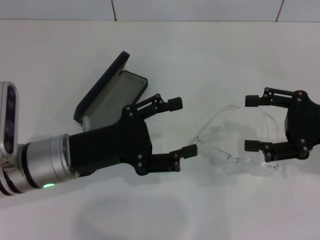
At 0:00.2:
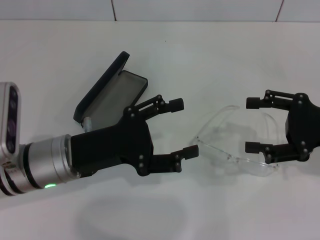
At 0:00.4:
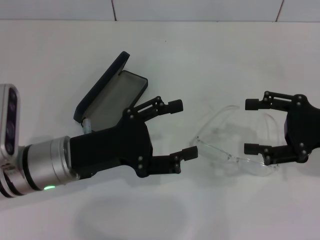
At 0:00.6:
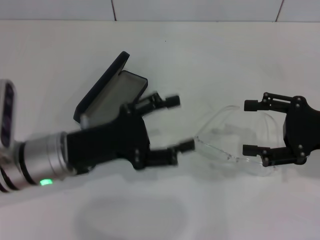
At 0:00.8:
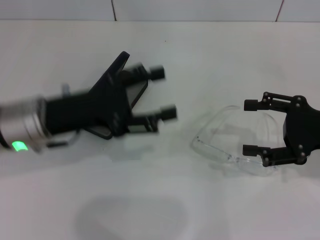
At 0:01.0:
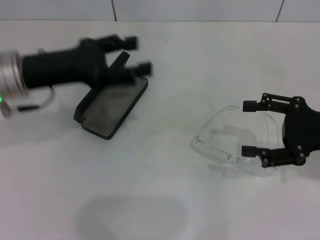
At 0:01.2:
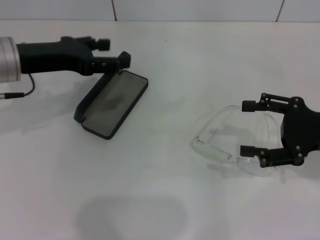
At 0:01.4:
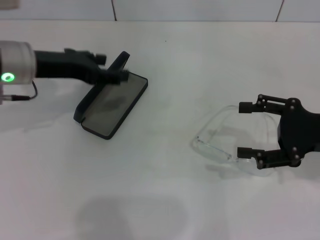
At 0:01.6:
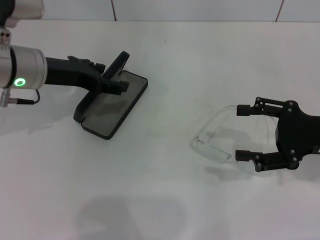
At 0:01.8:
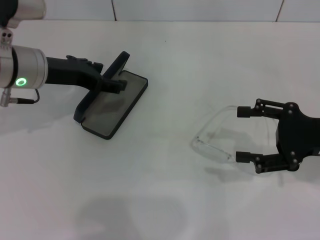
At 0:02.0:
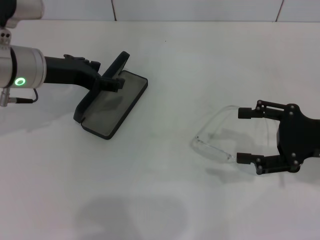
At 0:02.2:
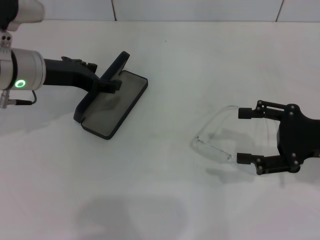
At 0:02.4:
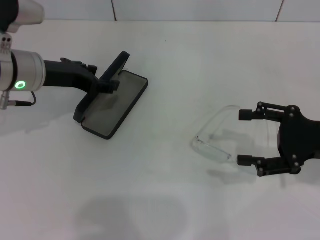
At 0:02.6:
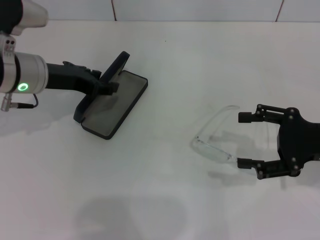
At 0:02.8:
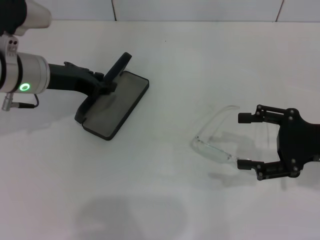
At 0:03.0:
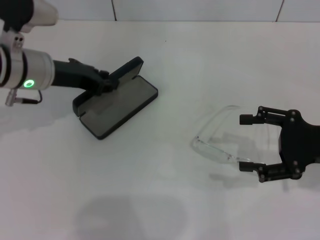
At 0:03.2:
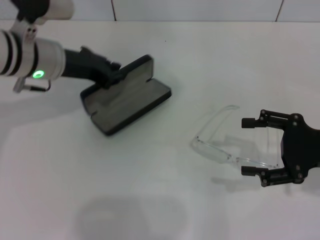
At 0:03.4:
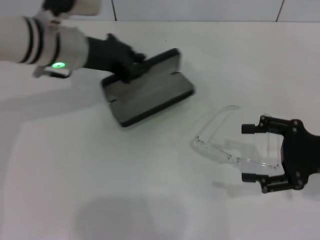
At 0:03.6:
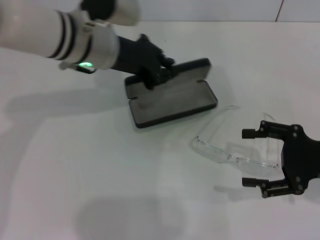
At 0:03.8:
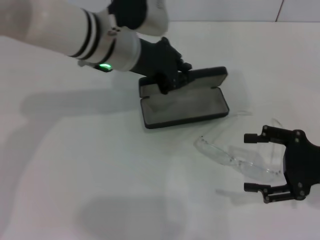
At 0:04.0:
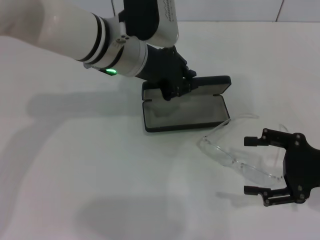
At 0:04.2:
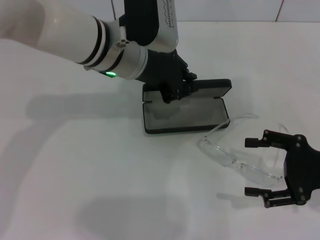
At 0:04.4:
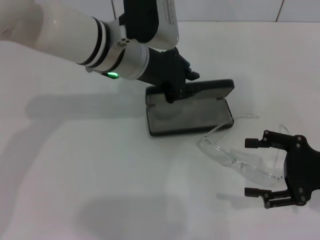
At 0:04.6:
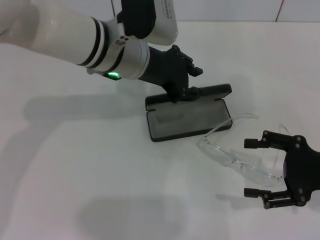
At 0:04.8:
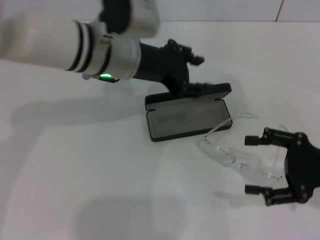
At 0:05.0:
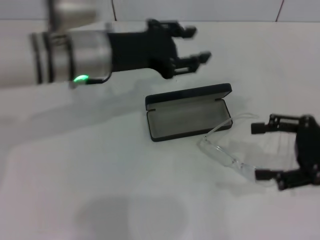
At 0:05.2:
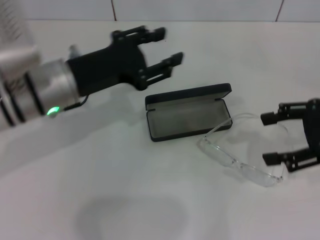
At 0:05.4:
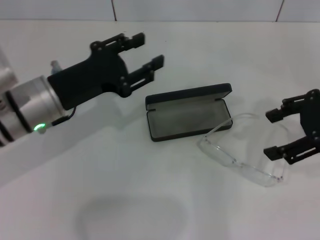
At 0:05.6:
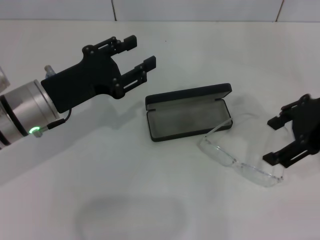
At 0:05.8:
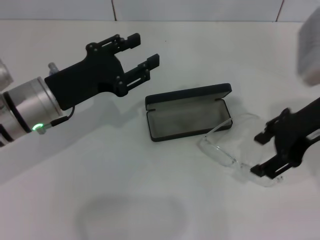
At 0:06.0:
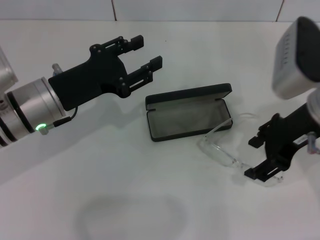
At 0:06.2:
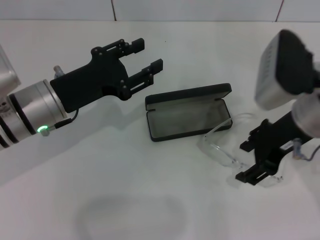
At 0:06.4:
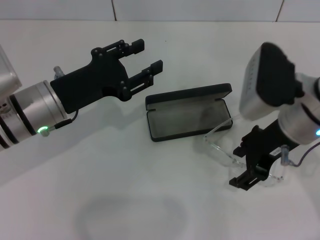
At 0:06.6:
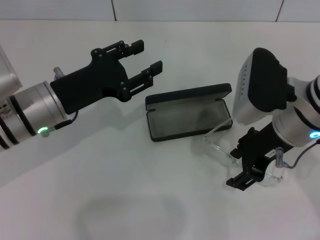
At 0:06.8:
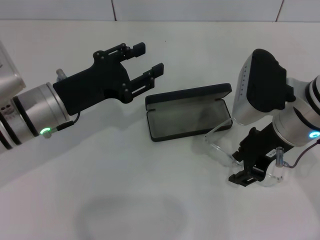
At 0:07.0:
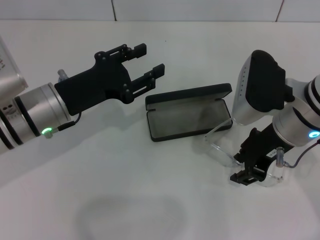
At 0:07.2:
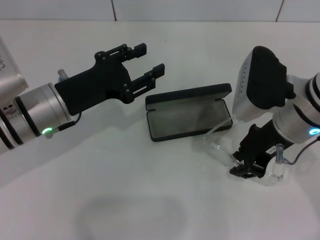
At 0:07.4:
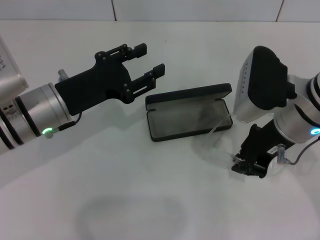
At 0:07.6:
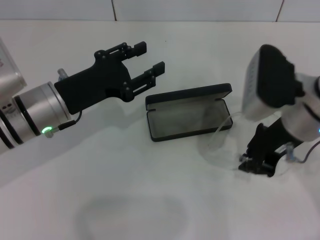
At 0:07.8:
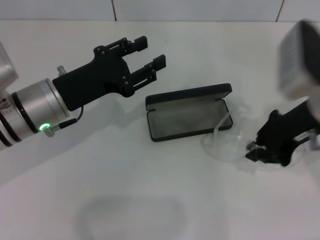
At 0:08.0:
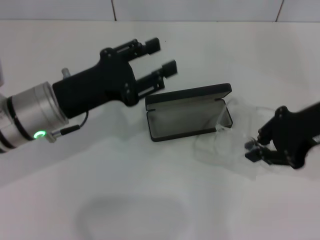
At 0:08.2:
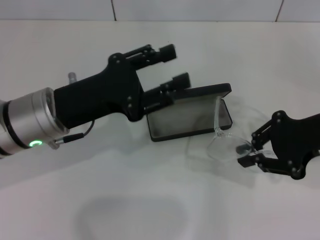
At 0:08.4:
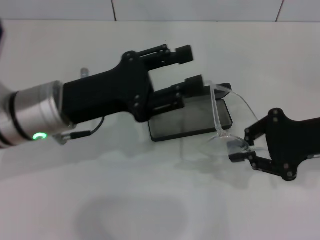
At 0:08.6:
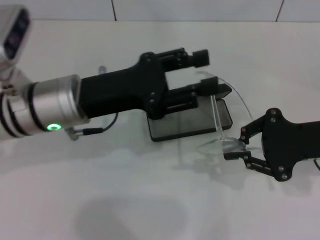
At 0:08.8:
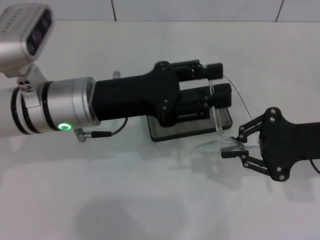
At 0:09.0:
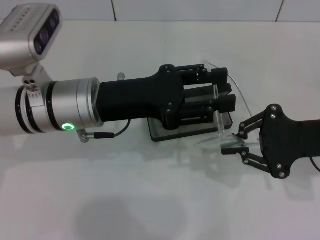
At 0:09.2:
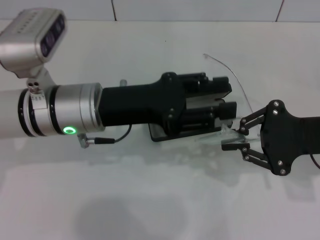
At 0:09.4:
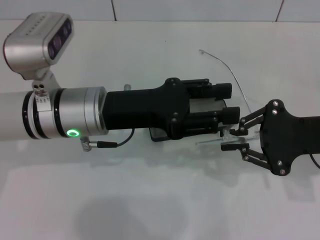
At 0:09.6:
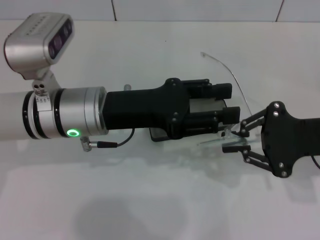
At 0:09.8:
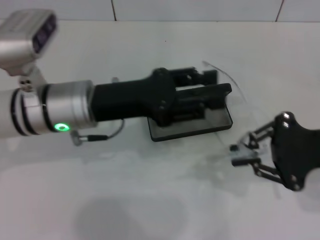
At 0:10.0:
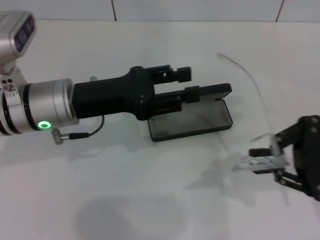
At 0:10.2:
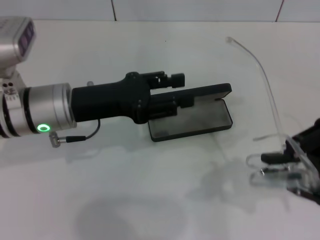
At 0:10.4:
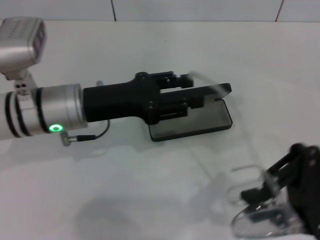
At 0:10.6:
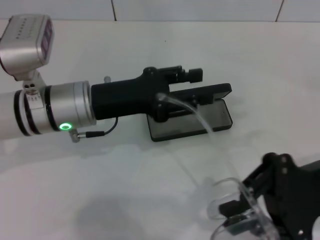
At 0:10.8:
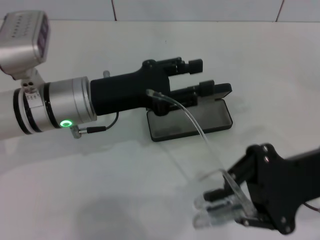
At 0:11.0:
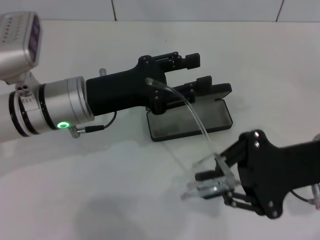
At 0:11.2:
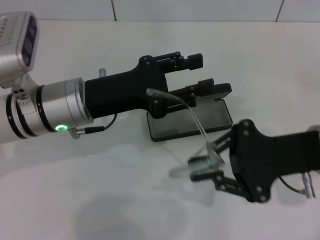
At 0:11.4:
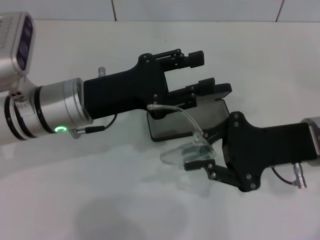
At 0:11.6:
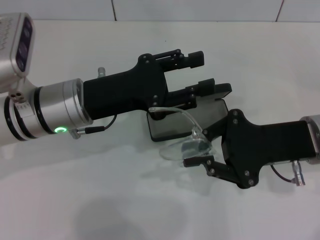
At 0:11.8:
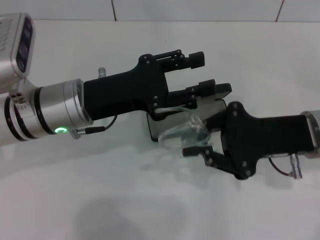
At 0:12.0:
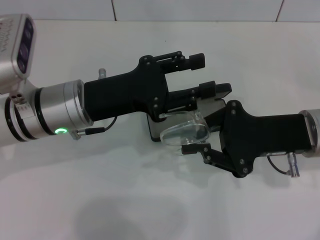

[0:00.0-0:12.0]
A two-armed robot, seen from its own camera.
Step, 0:00.0 to 0:02.8: Grab the glasses case with your left hand.
Step, 0:03.0 to 0:04.2: Place the glasses case in the center of the table with your left hand.
Step, 0:04.6 to 0:07.4: Grab the eyeglass frame with your right hand.
0:00.0 to 0:01.6: The left gripper heads forward and upward, covering some 15 cm.
0:01.6 to 0:03.0: The left gripper closes up.
0:03.0 to 0:04.4: The left gripper travels to the right by approximately 15 cm.
0:04.4 to 0:06.0: The right gripper travels upward, to the left and forward by roughly 15 cm. Meanwhile the left gripper heads to the left, backward and downward, covering approximately 15 cm, and opens up.
0:06.0 to 0:07.6: The right gripper closes its fingers.
0:07.6 to 0:09.0: The left gripper moves to the right, some 5 cm. Meanwhile the right gripper goes about 10 cm to the right.
0:10.4 to 0:12.0: The right gripper heads to the left and forward, covering about 5 cm.

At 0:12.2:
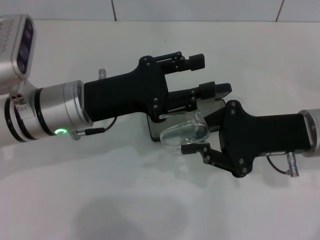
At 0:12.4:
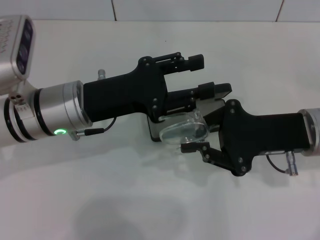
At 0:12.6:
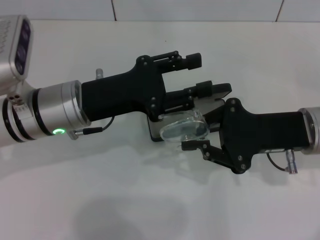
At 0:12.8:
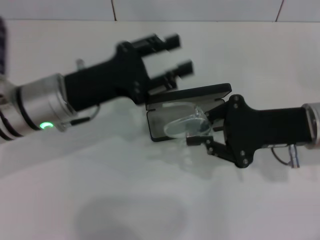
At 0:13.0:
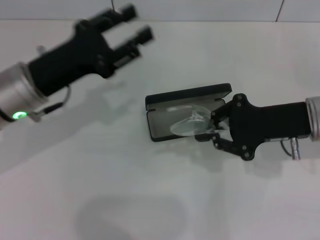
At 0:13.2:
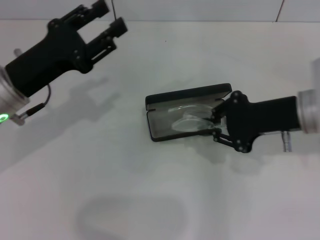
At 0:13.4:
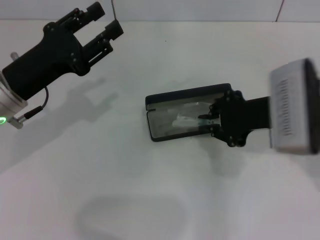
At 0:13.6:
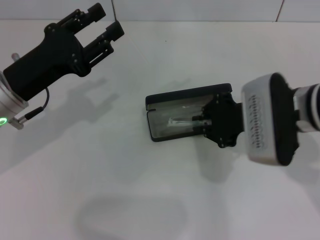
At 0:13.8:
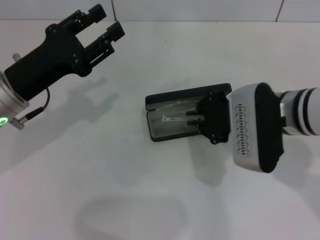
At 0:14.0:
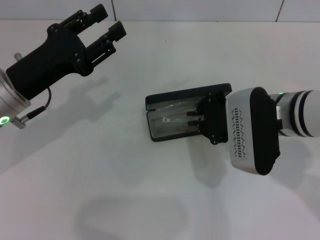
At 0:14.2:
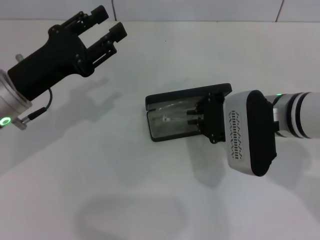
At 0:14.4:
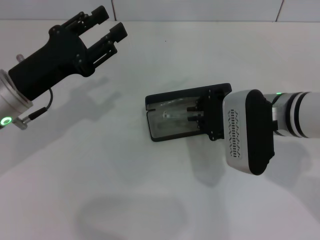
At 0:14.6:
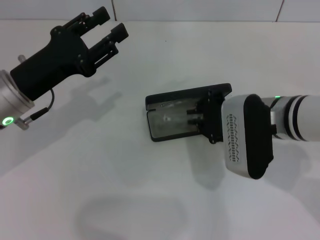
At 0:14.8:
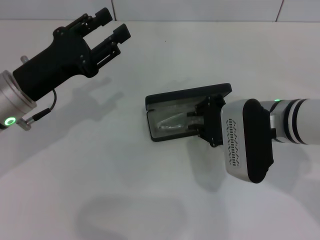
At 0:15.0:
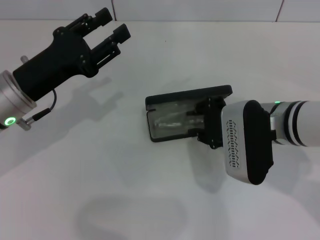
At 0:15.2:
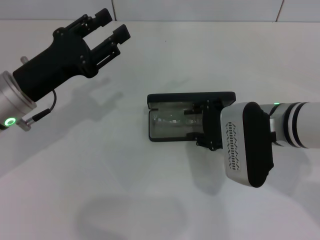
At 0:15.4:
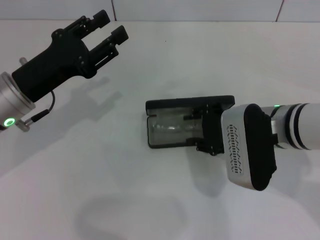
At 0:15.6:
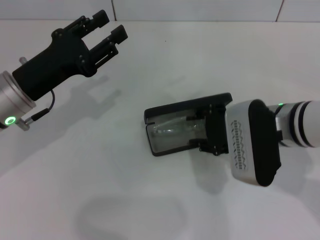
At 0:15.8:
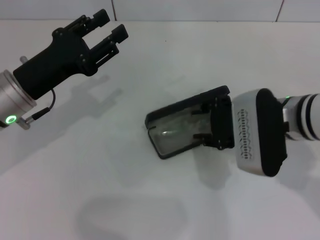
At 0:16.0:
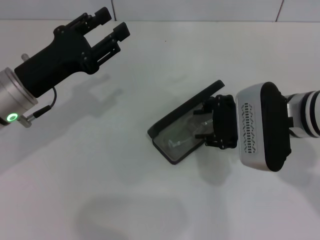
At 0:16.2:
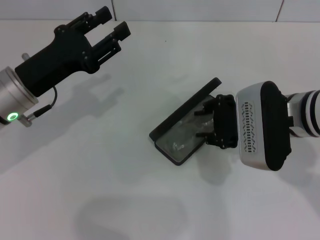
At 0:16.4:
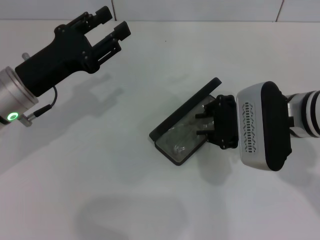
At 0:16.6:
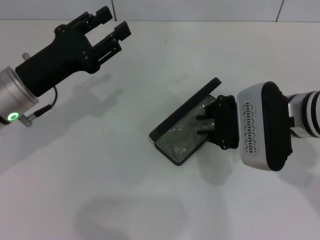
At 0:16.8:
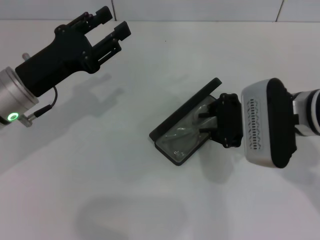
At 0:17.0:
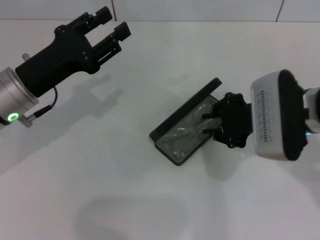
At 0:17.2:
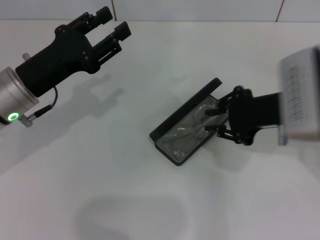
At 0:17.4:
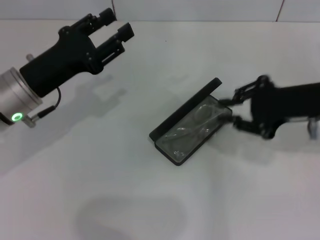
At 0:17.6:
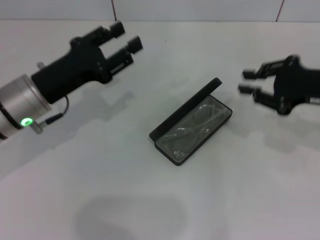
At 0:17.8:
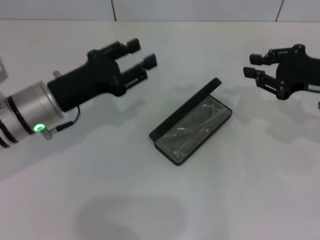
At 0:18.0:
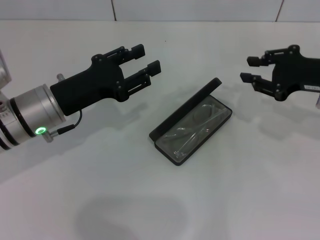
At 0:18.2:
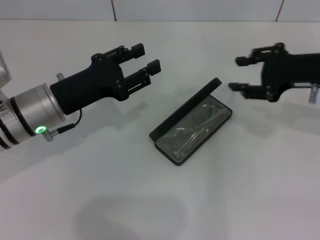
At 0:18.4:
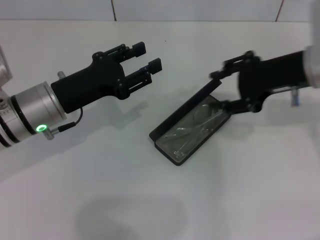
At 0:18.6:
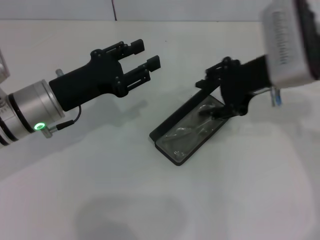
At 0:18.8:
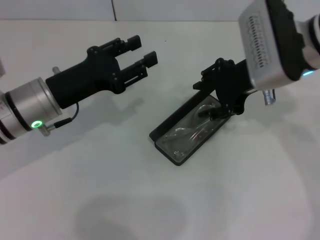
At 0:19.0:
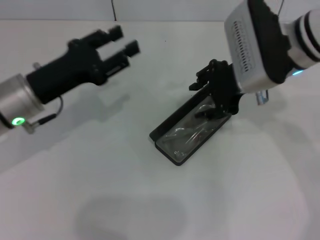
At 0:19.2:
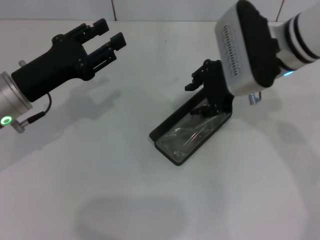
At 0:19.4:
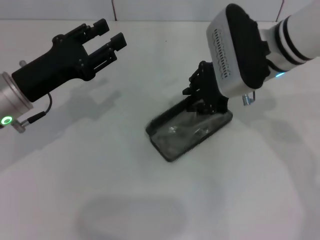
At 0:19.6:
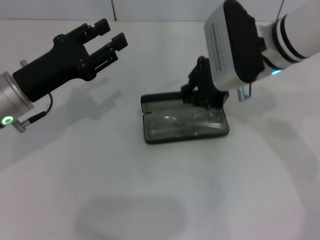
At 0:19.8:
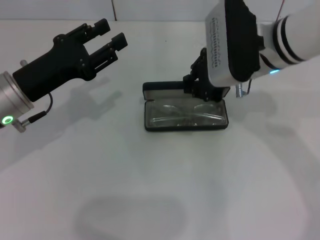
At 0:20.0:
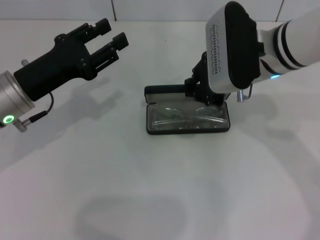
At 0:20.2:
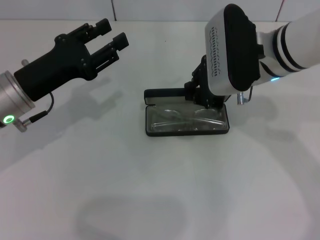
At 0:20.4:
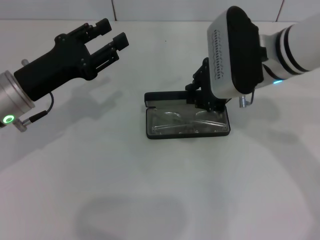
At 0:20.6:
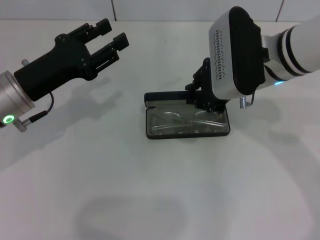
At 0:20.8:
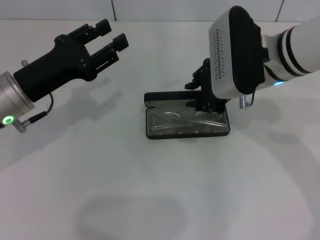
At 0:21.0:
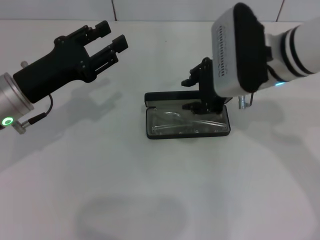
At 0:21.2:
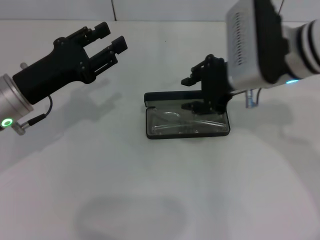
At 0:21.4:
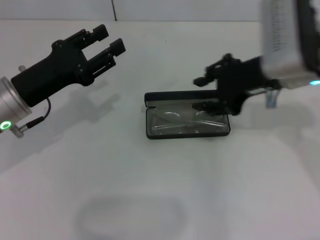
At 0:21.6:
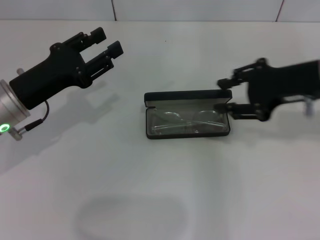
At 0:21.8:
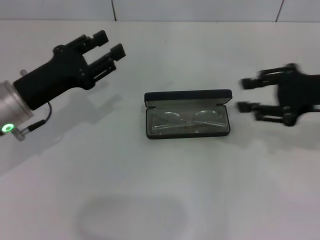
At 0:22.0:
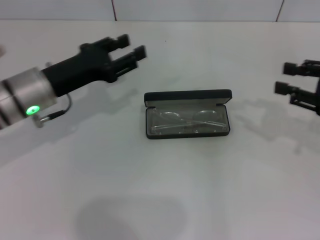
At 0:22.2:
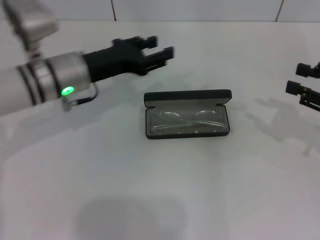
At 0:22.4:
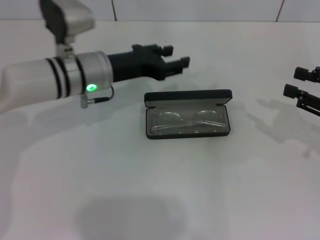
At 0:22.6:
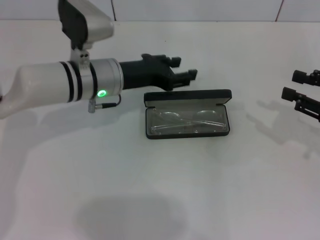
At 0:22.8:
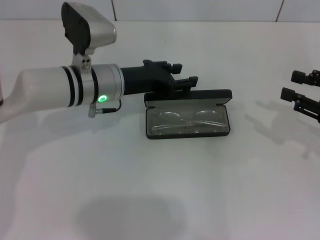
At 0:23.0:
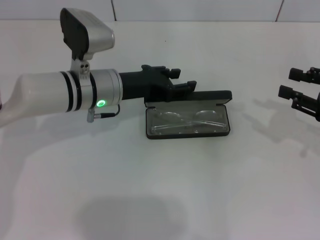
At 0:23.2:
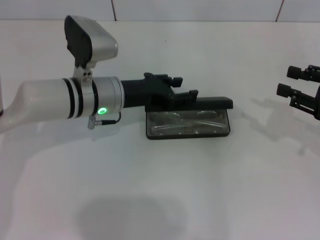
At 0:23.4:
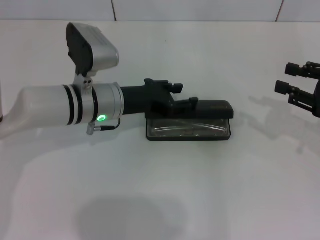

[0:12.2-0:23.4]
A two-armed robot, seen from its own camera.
Step, 0:12.6 to 0:16.6: Put the glasses into the case with your right hand.
0:12.2 to 0:13.8: Both grippers travel together to the left, approximately 5 cm.
0:13.8 to 0:15.4: The right gripper opens up.
0:15.4 to 0:17.0: There are only small adjustments of the grippers.
0:17.0 to 0:18.6: The right gripper shifts some 5 cm upward, moves roughly 10 cm to the right and comes back, and opens up.
0:18.6 to 0:20.2: The right gripper changes place by some 5 cm, and closes up.
0:20.2 to 0:21.8: The right gripper moves to the right, some 15 cm.
0:21.8 to 0:23.4: The left gripper heads to the right and forward, covering about 10 cm. The right gripper heads to the right, covering approximately 5 cm.
